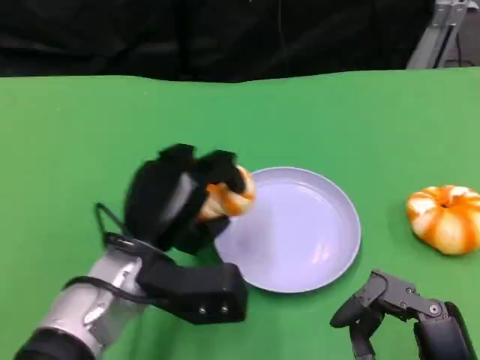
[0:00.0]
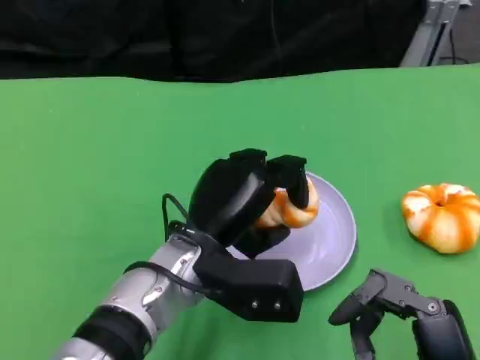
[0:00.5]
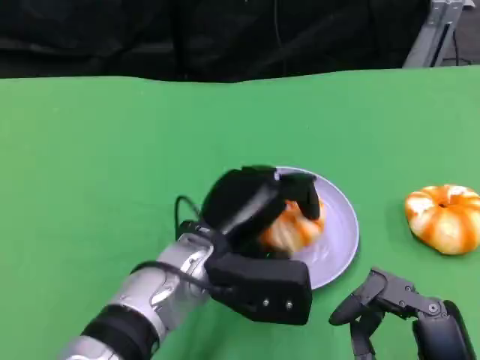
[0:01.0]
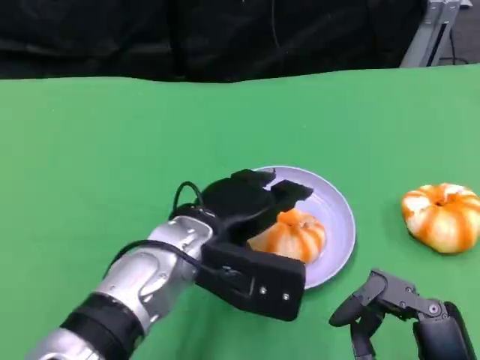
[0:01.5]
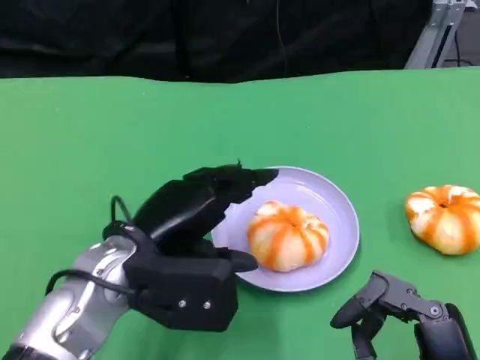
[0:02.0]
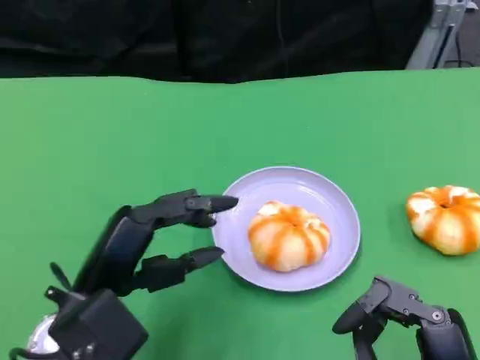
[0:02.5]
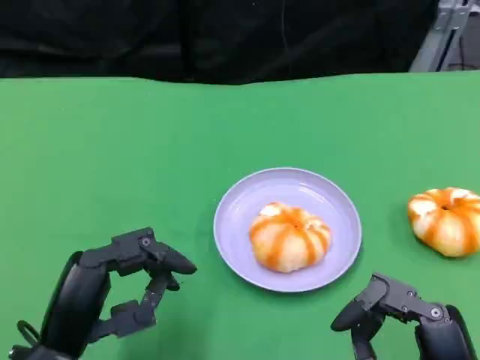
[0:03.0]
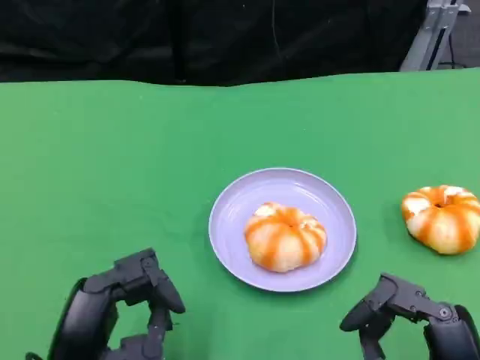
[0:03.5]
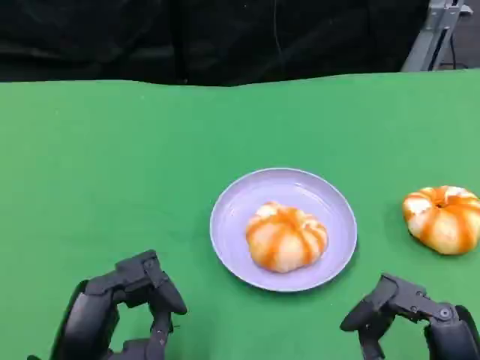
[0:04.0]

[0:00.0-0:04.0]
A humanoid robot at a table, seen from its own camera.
Task of the whole recording: Grasp the bread from the table and place it into the plate.
0.0 to 2.0 s: The left hand travels to the right and back again, some 5 cm each way.
2.0 to 4.0 s: The left hand moves backward, downward and to the left, approximately 15 cm.

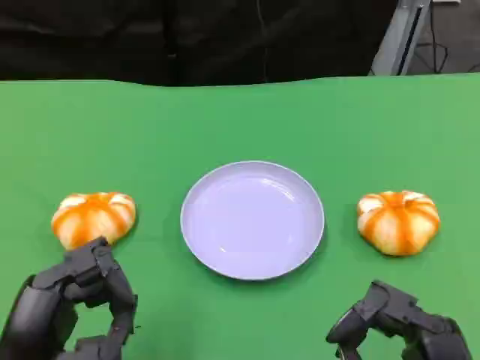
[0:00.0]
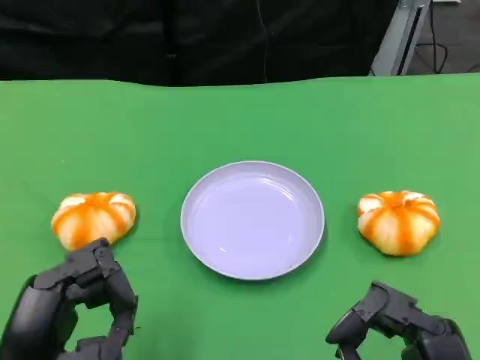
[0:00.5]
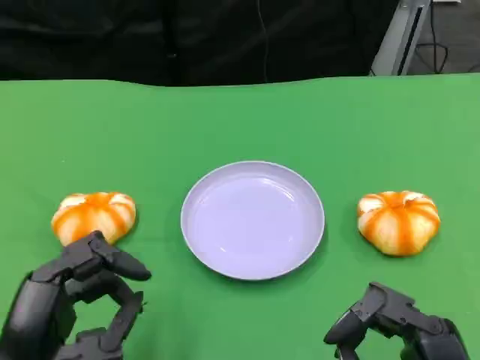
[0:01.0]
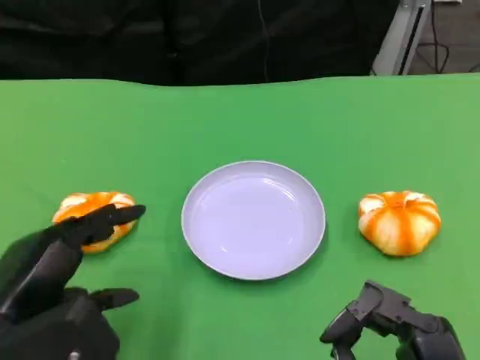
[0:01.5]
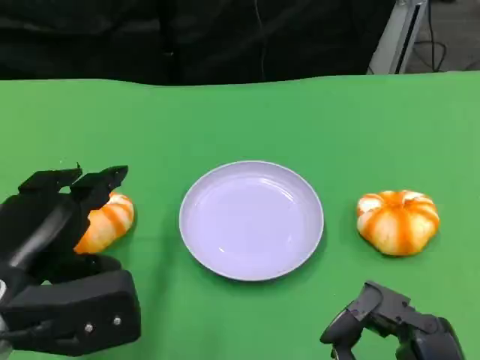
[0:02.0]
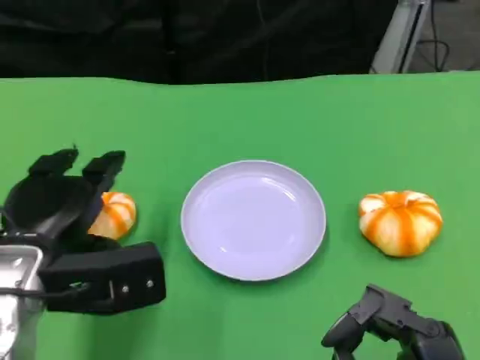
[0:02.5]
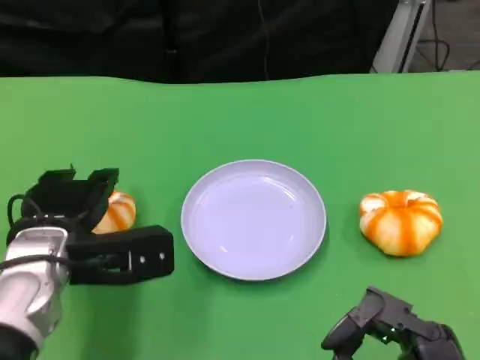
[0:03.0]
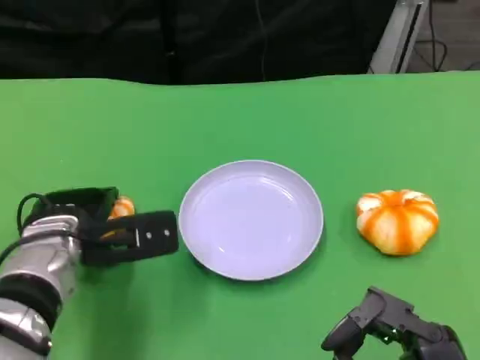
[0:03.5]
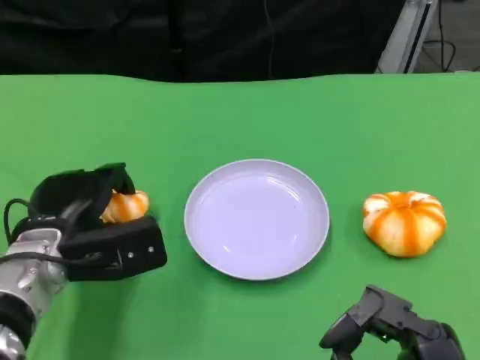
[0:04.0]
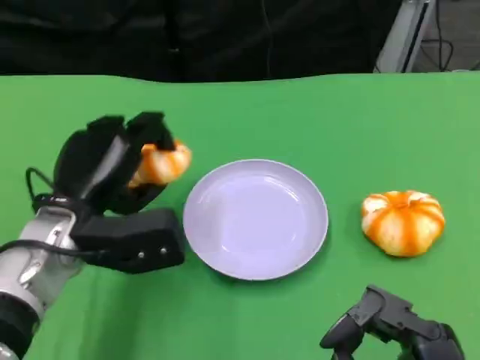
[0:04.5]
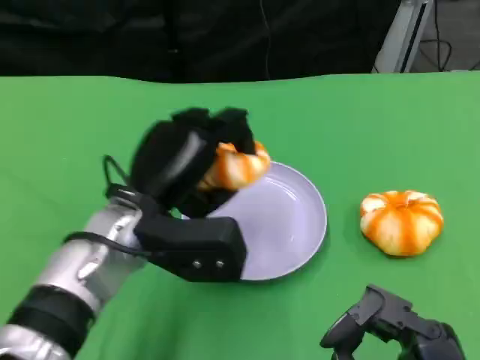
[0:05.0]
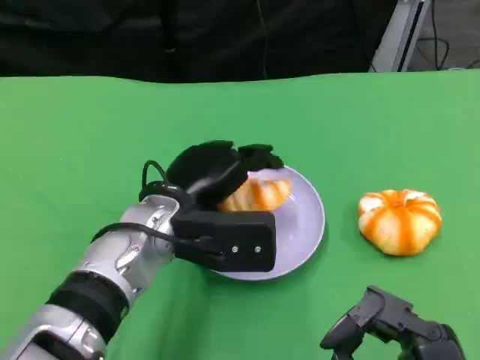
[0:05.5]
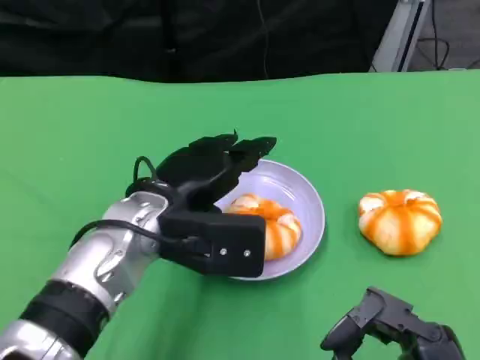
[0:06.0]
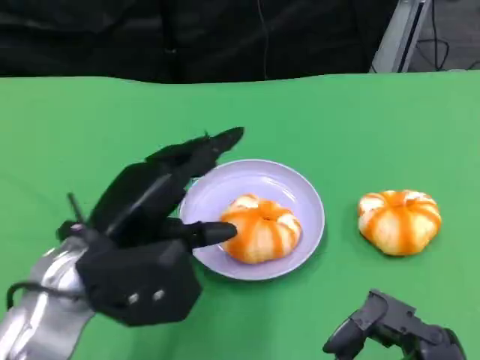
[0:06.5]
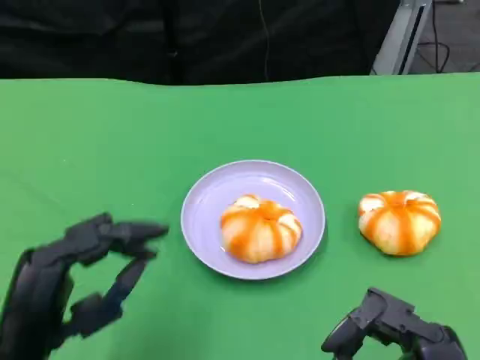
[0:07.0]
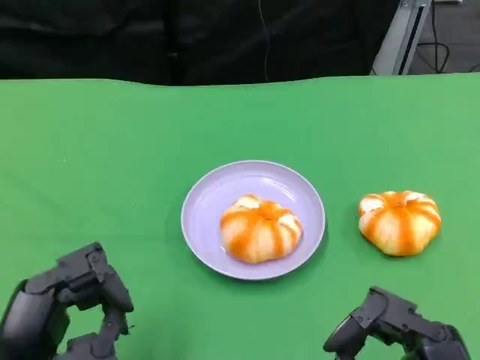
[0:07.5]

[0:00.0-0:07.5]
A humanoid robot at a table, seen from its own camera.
Task of the whole recording: Grasp the bread from the table and place it into the plate.
0.0 to 2.0 s: The left hand goes some 5 cm forward.
2.0 to 4.0 s: The left hand is displaced forward and downward by approximately 10 cm.
4.0 to 5.5 s: The left hand heads to the right, covering roughly 10 cm.
5.5 to 7.5 s: The left hand heads backward and to the left, covering about 20 cm.

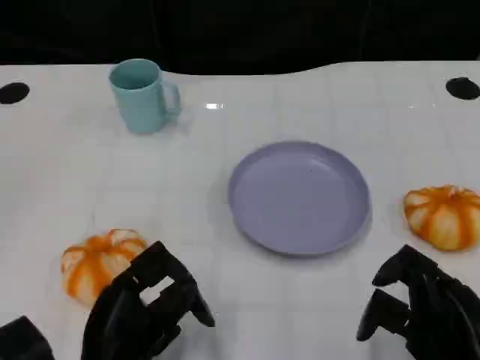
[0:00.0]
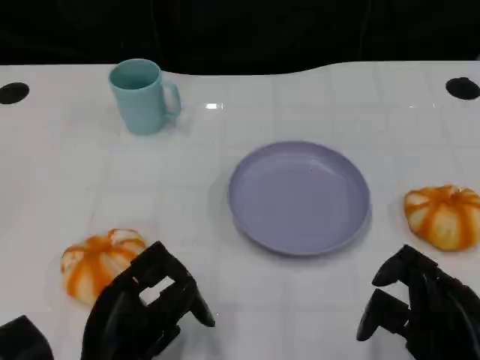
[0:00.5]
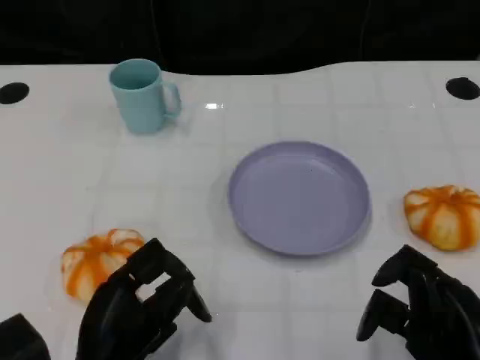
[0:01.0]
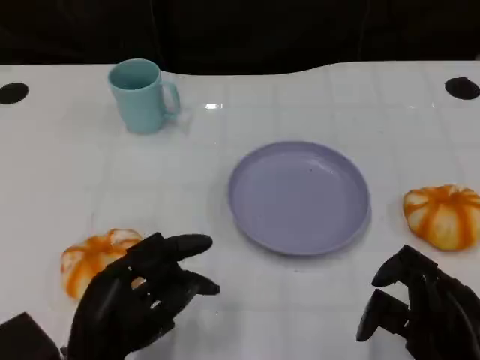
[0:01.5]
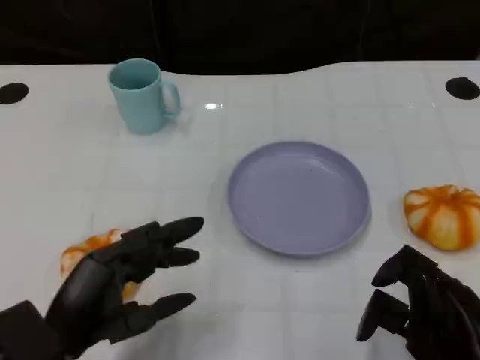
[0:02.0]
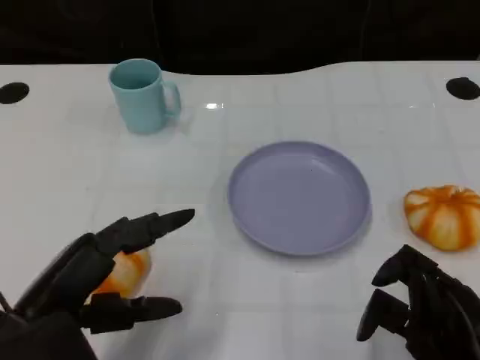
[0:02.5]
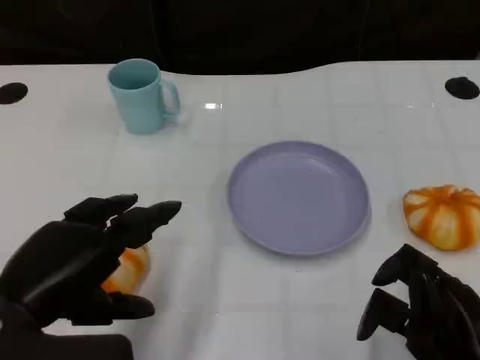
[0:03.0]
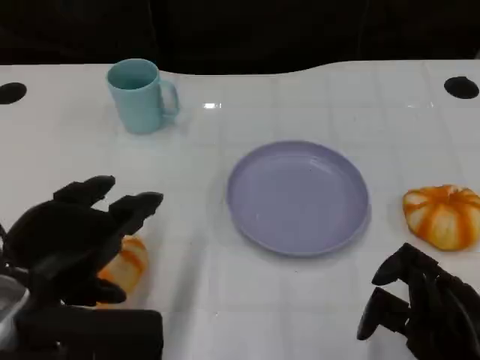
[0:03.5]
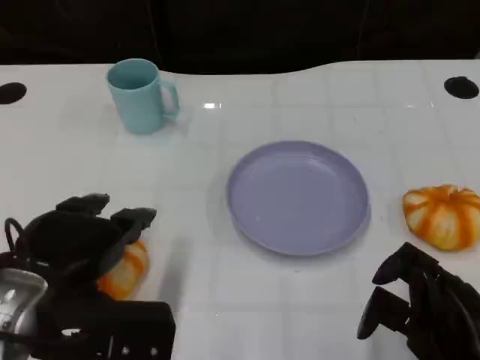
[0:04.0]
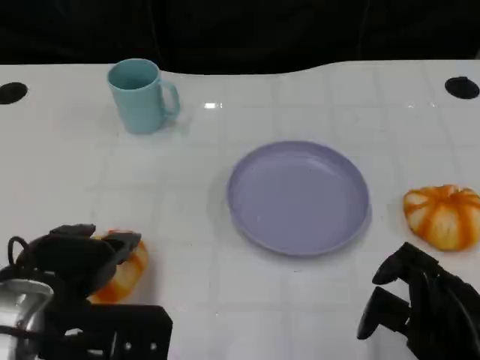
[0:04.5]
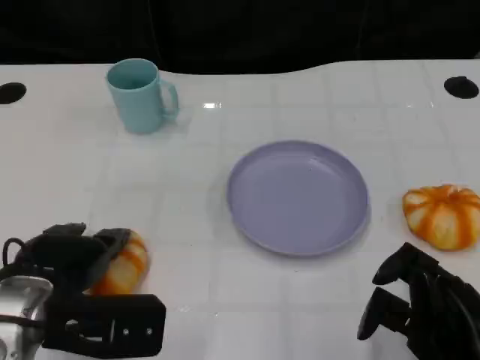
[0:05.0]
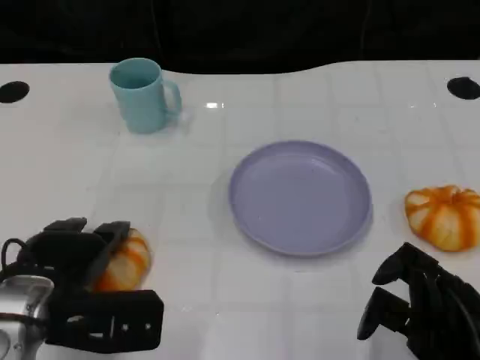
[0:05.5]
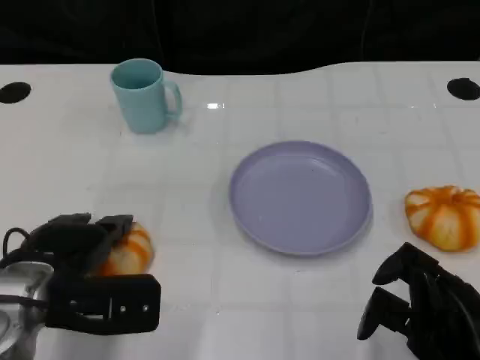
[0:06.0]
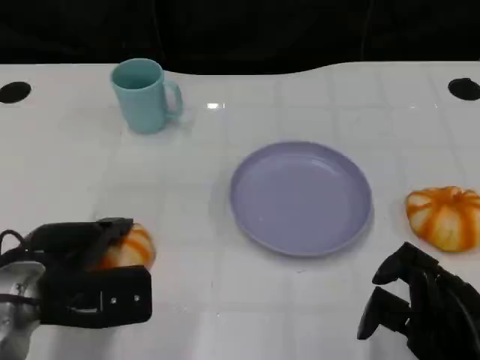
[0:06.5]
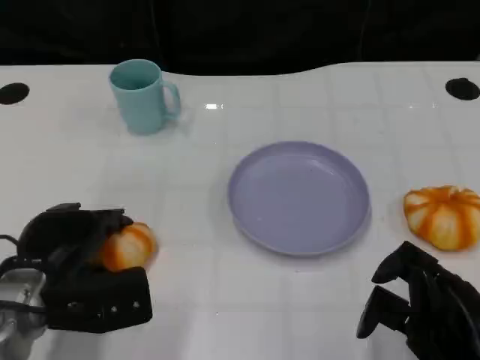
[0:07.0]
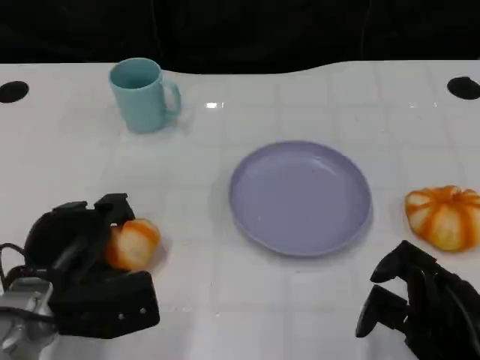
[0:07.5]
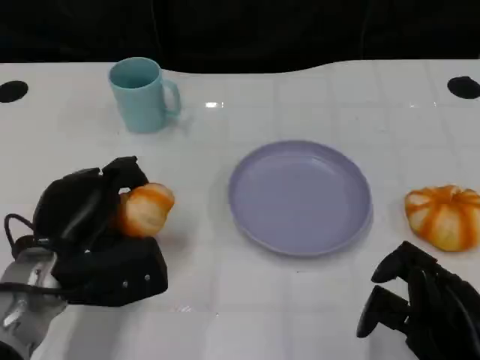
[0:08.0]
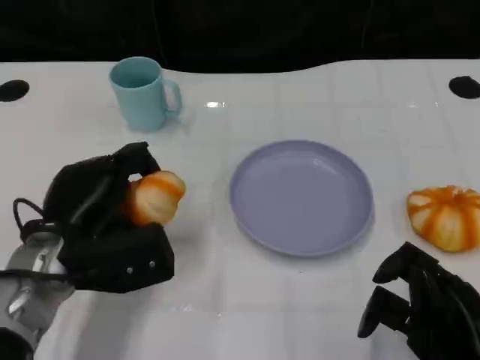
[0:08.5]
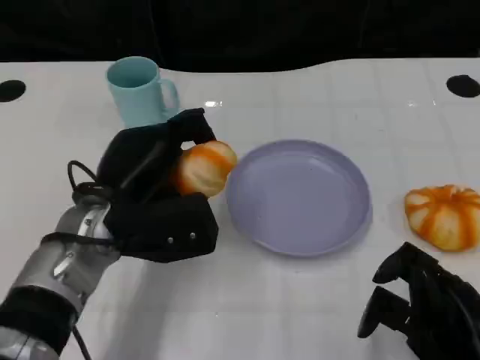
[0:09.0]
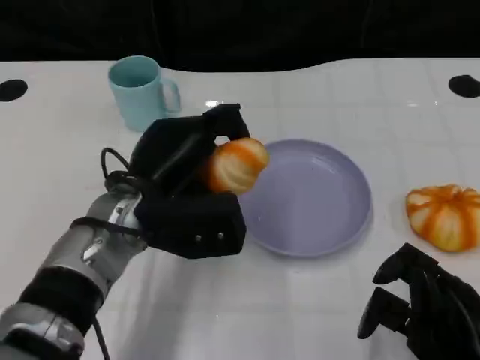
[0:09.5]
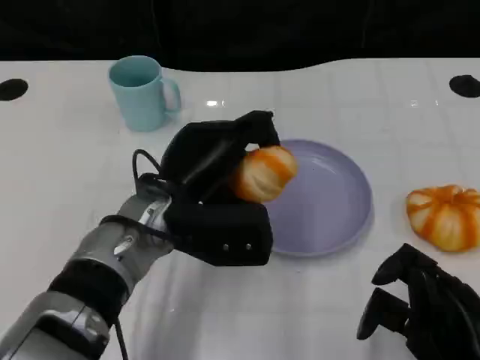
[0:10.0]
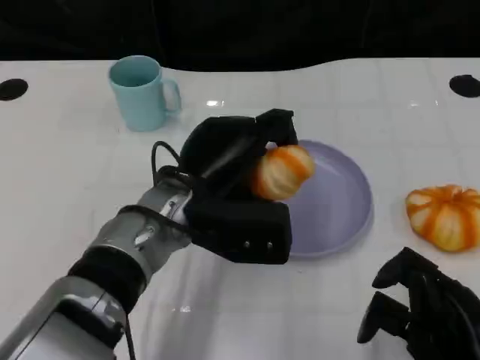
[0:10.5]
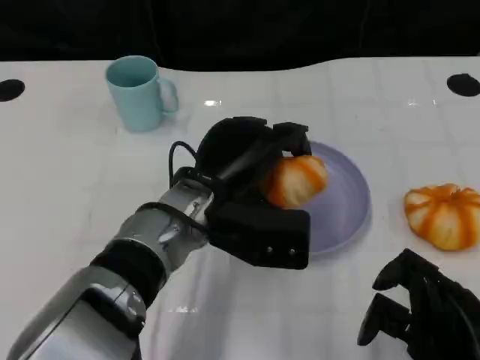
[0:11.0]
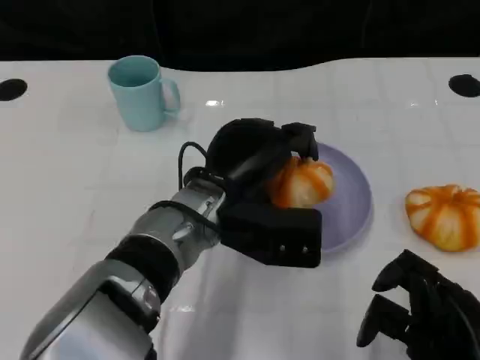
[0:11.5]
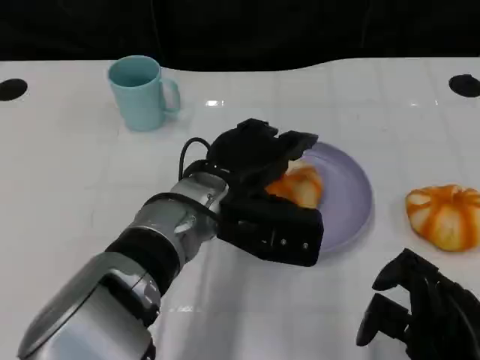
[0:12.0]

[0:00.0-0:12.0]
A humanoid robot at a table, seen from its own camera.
Task of the whole recording: Grasp the bread from the table and place it into the plate.
0.0 to 2.0 s: The left hand shifts by approximately 5 cm.
2.0 to 4.0 s: The left hand heads upward, covering roughly 5 cm.
4.0 to 6.0 s: The left hand heads downward, covering roughly 5 cm.
8.0 to 10.0 s: The left hand heads to the right, covering some 10 cm.

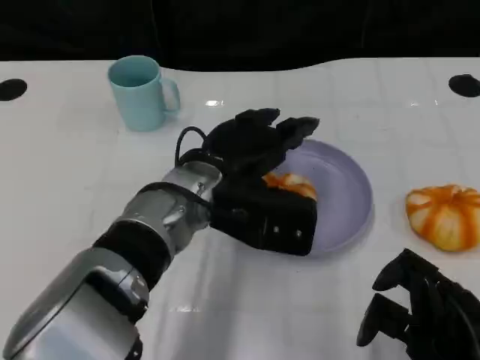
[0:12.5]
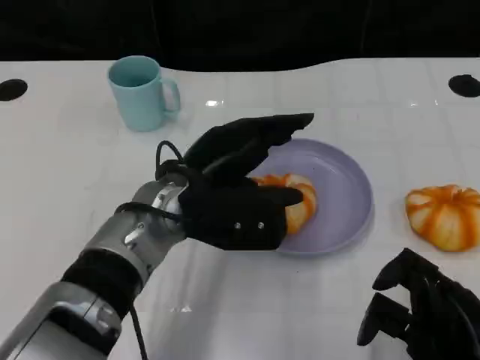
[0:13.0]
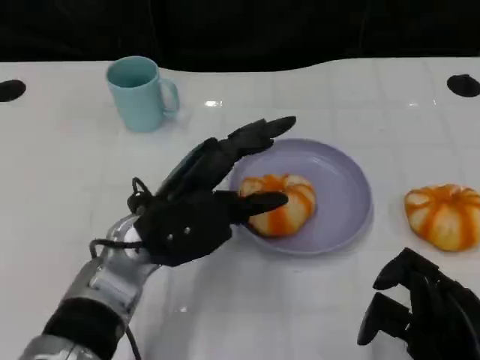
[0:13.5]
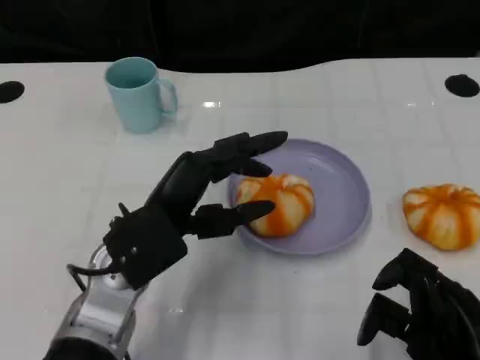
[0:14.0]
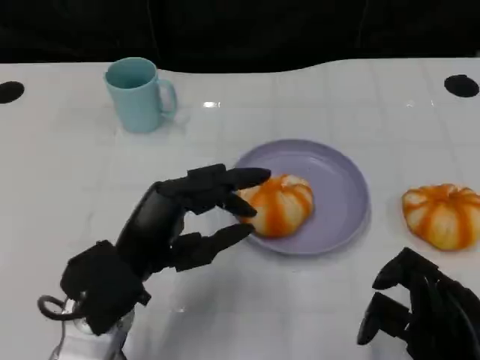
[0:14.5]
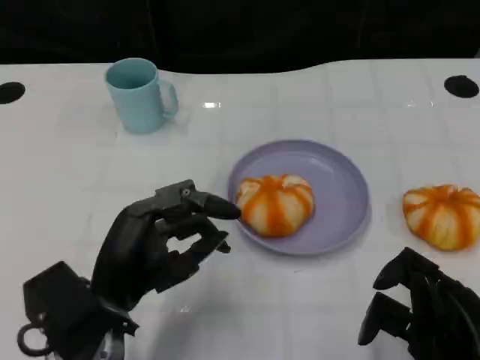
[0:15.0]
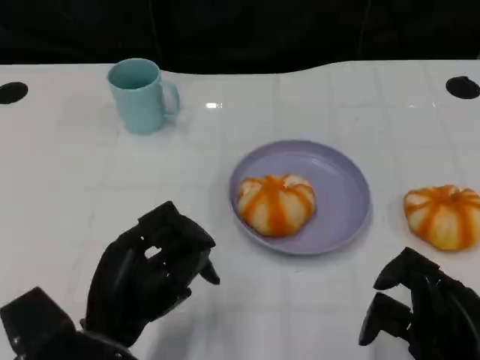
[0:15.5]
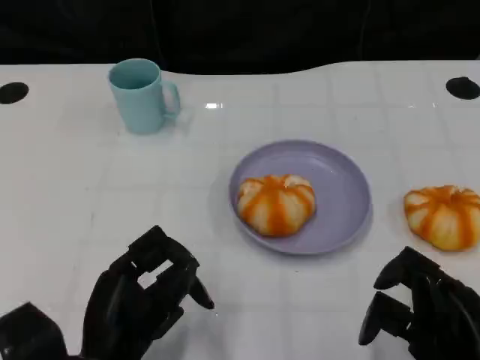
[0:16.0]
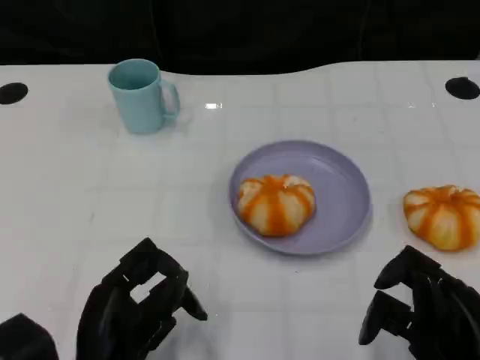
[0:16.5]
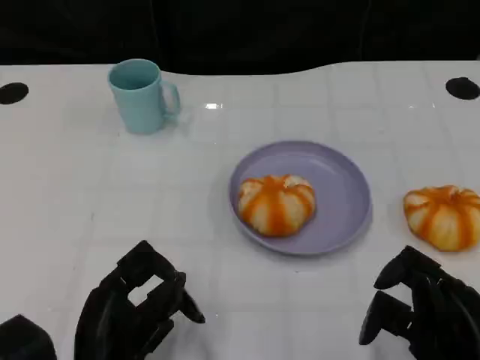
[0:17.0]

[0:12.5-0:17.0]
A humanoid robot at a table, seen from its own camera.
Task of the whole recording: Grasp the bread from the table and place it into the plate.
12.5 to 14.5 s: The left hand shifts roughly 15 cm to the left and backward.
14.5 to 17.0 s: The left hand heads backward, covering some 10 cm.
